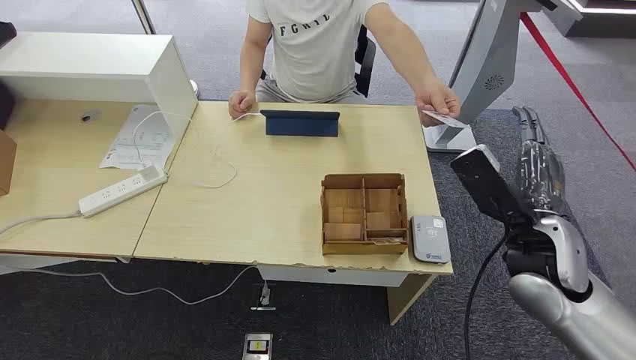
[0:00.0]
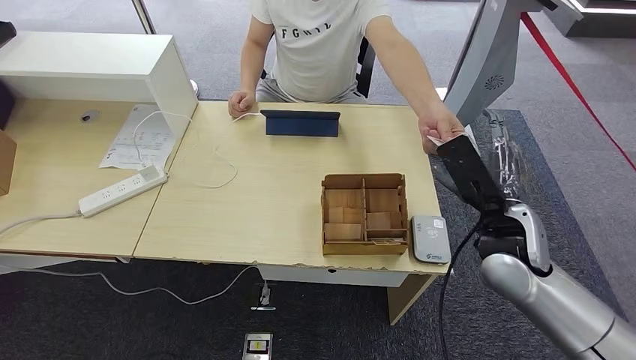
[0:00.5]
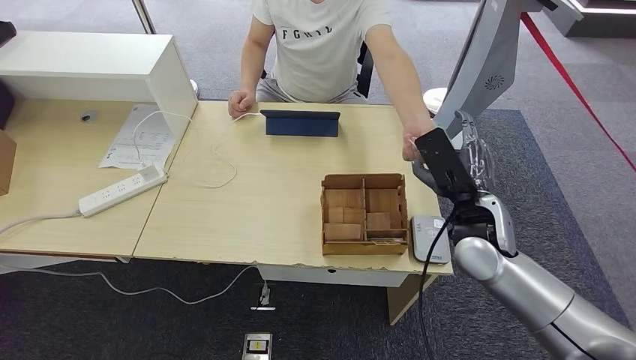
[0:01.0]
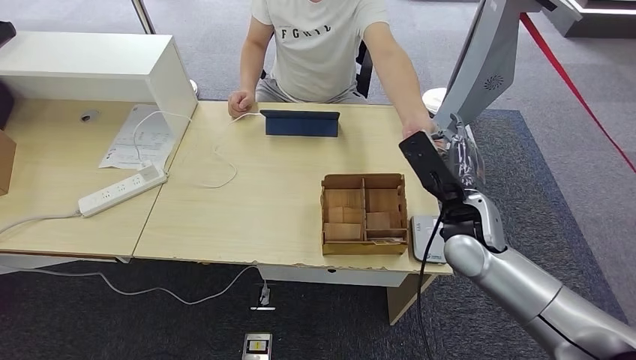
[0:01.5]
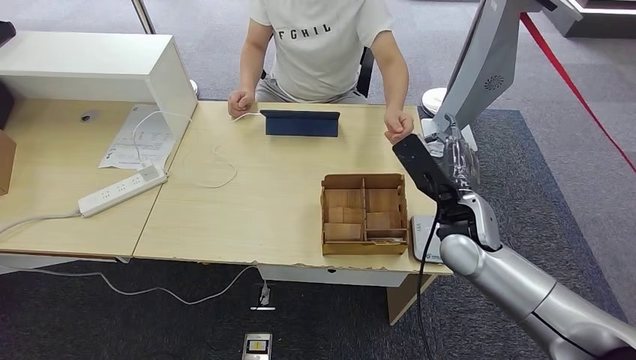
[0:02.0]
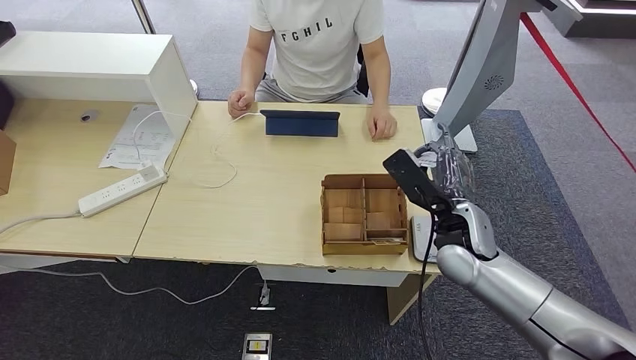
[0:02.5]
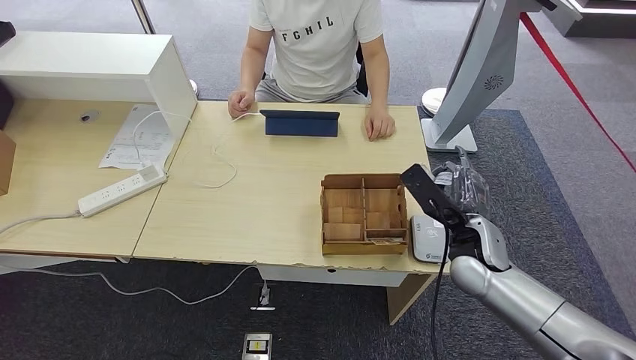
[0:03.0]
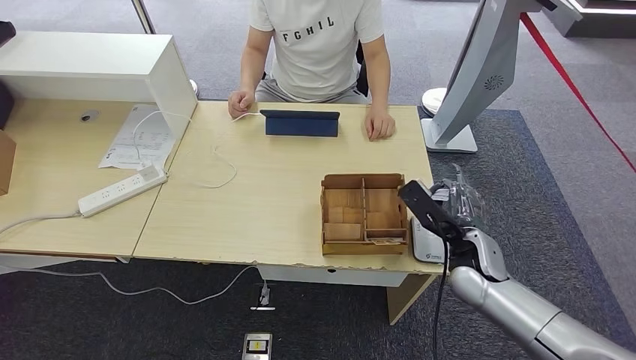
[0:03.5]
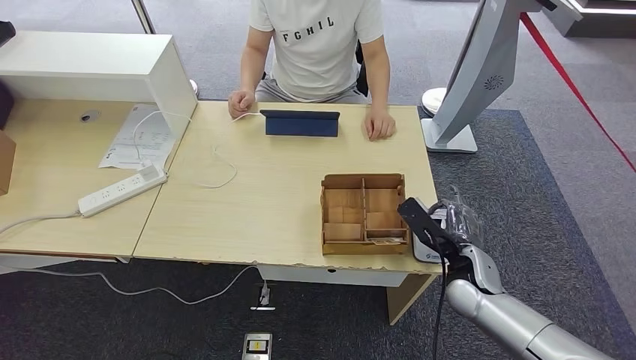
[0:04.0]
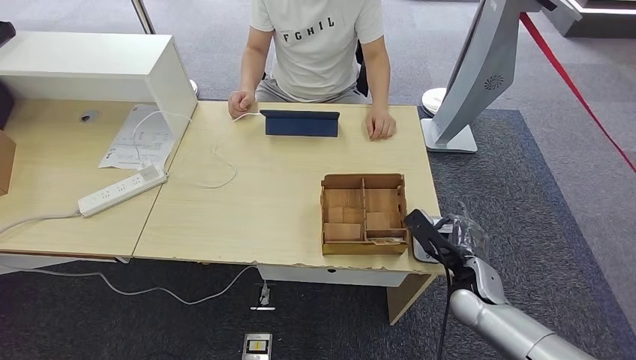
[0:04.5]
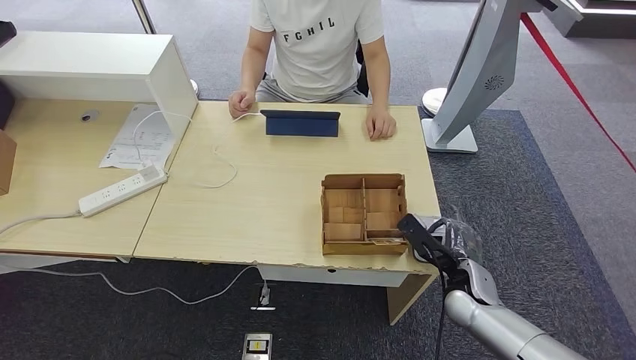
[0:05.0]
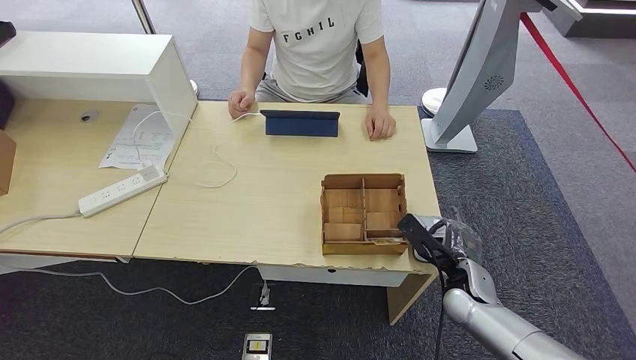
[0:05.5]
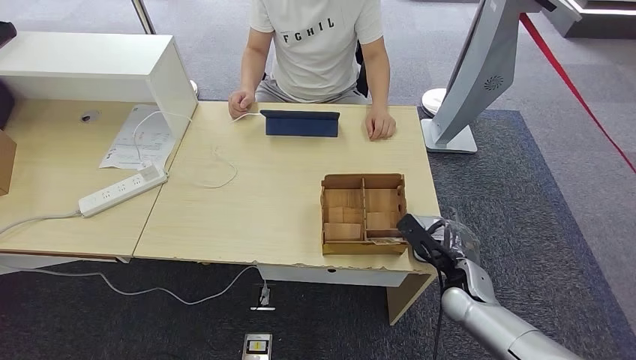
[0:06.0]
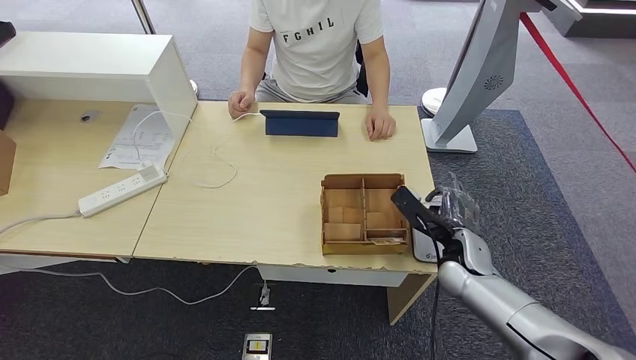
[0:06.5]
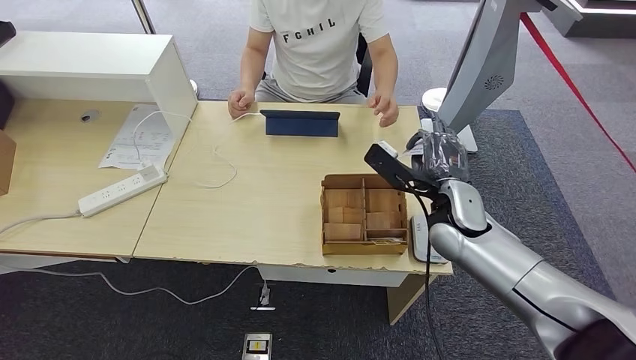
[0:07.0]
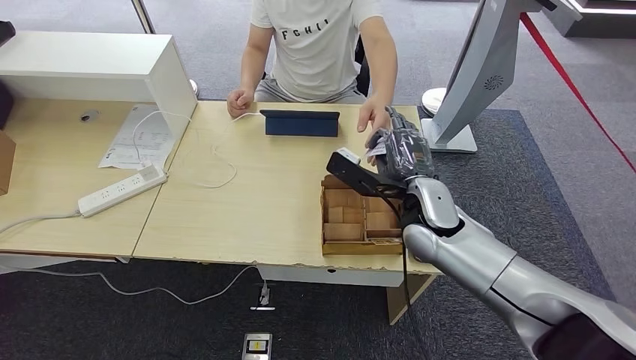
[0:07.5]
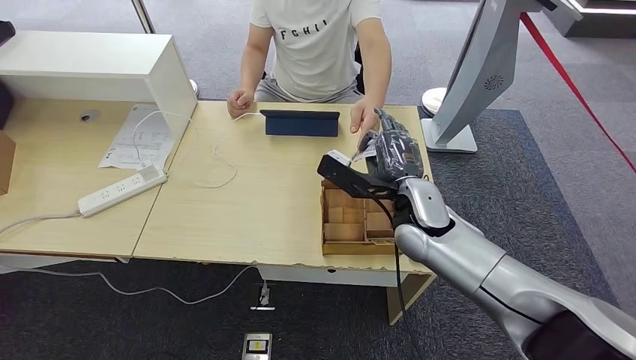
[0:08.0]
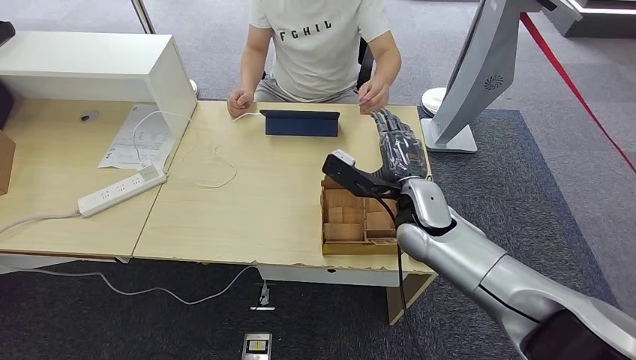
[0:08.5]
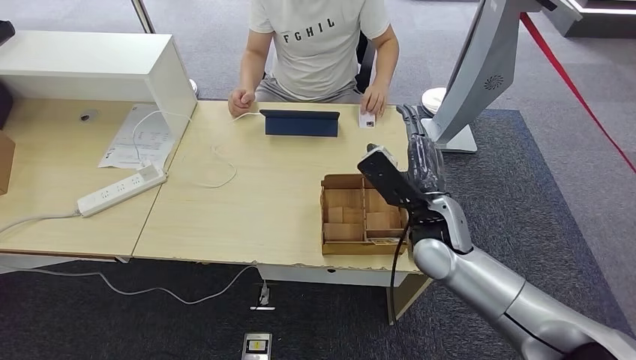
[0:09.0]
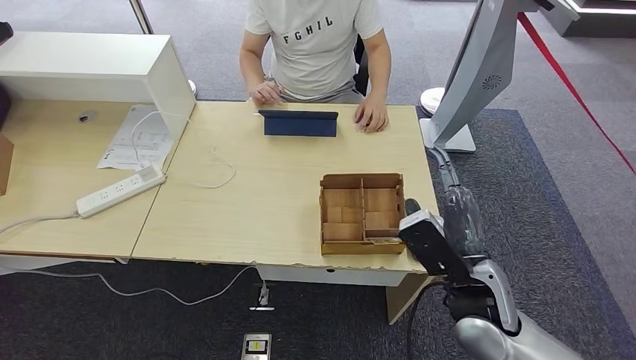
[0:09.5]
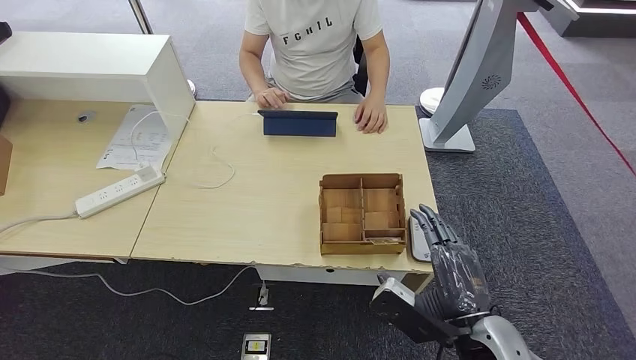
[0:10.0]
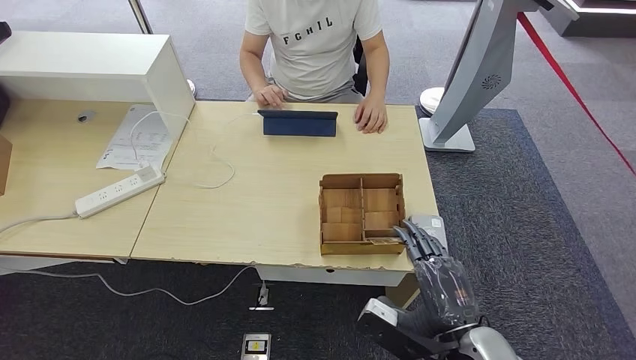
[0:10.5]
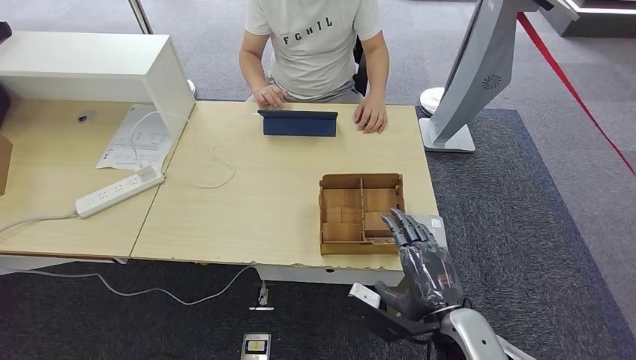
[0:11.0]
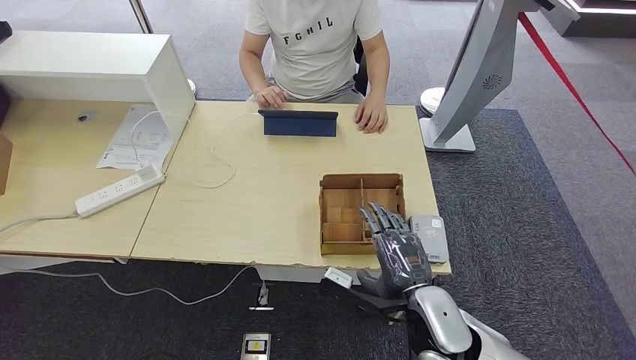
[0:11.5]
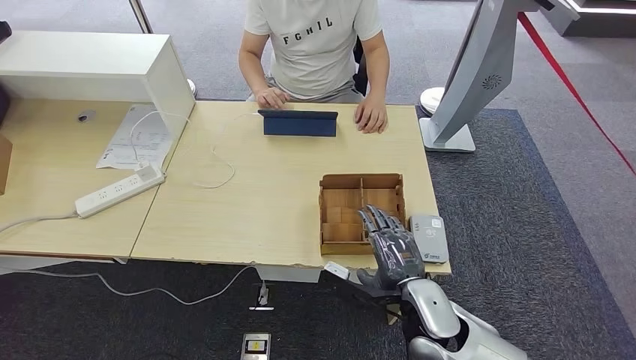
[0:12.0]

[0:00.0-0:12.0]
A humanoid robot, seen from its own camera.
Step, 0:00.0 to 0:02.5: Take the ID card from the person's hand.
Step, 0:03.0 to 0:04.0: Place the ID card on the card reader.
Step, 0:04.5 to 0:10.0: Hand the ID card to the person.
0:02.0 to 0:04.0: The right hand is displaced downward by about 10 cm.
0:04.0 to 0:06.0: The hands move only a little.
0:06.0 to 0:08.0: The right hand moves upward, to the left and forward, about 20 cm.
0:08.0 to 0:10.0: The right hand moves backward, about 20 cm.
0:10.0 to 0:12.0: The right hand is displaced forward, to the left and downward by about 10 cm.

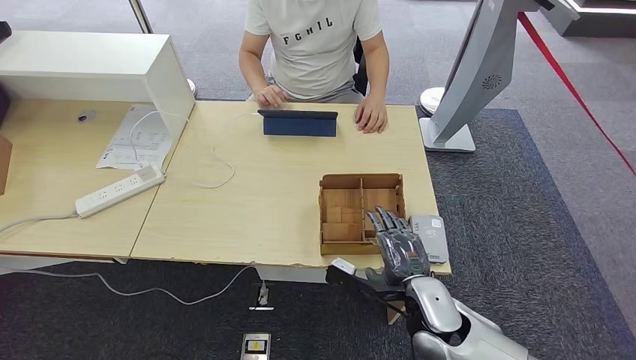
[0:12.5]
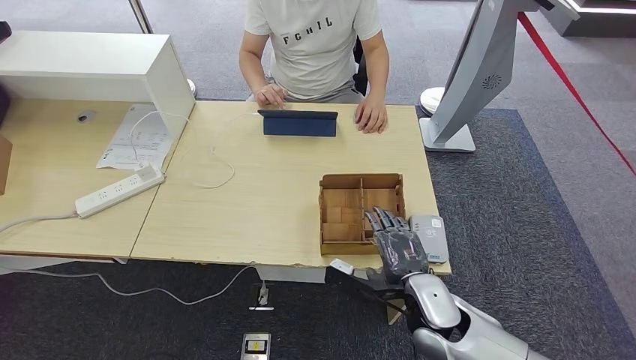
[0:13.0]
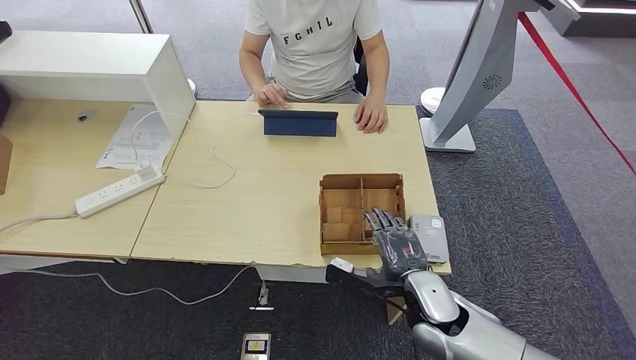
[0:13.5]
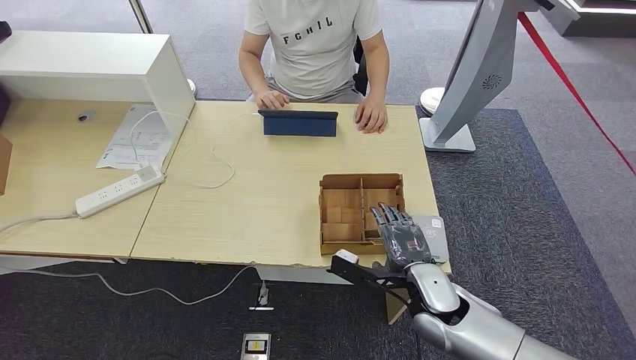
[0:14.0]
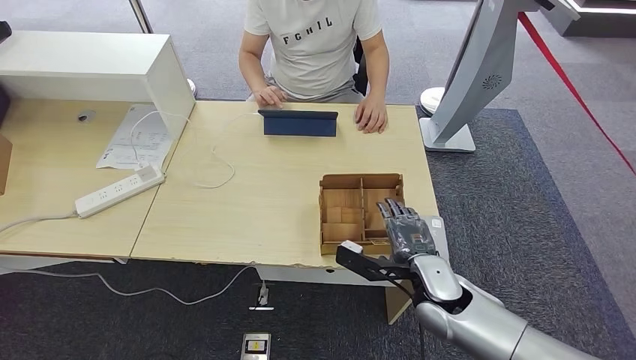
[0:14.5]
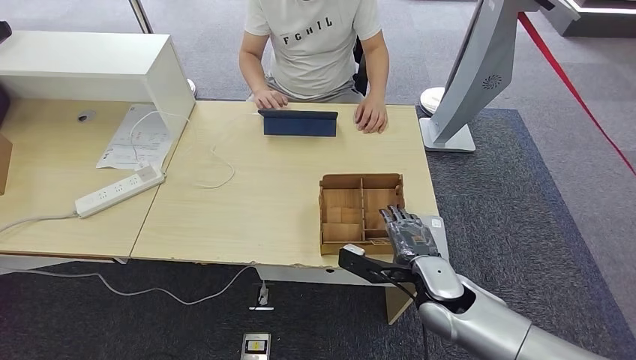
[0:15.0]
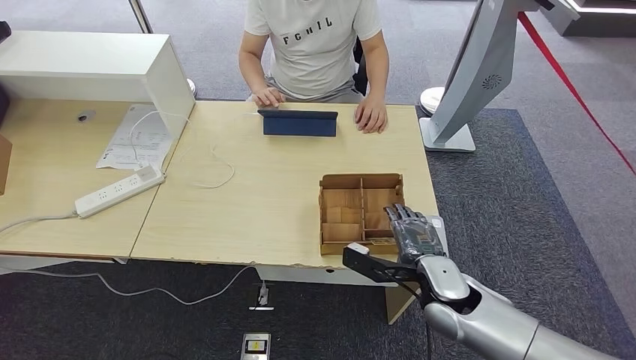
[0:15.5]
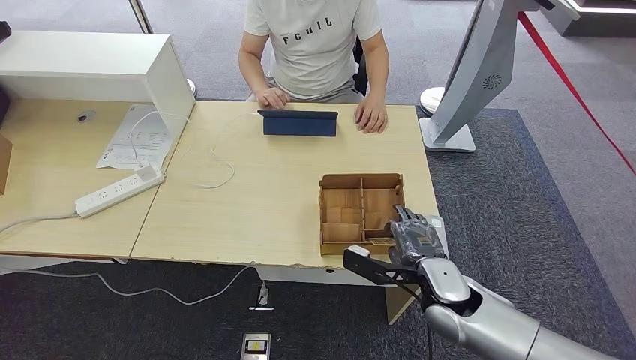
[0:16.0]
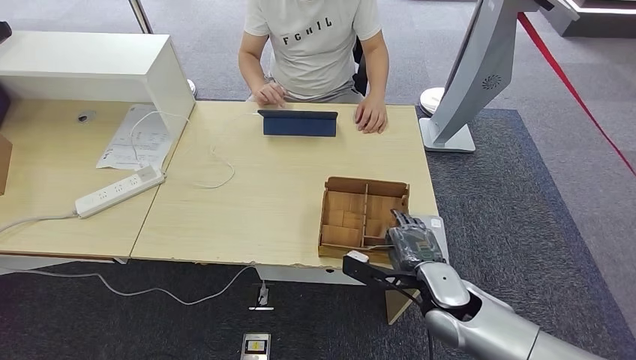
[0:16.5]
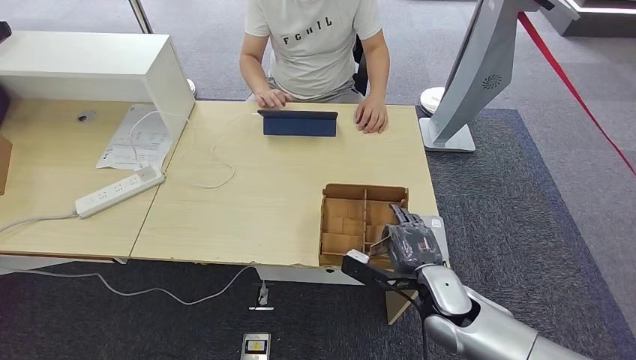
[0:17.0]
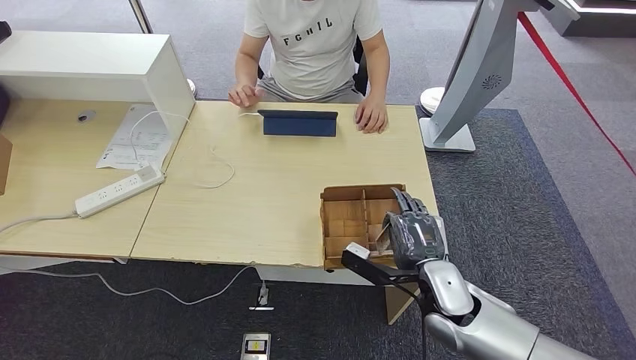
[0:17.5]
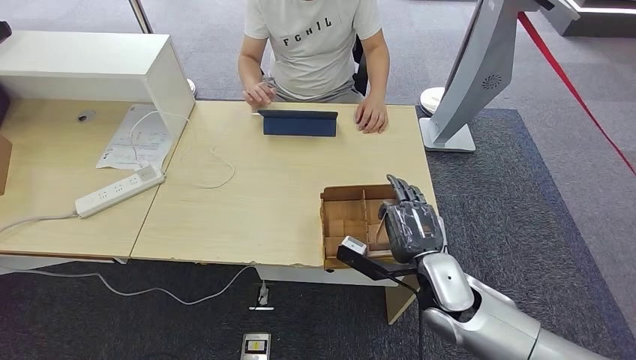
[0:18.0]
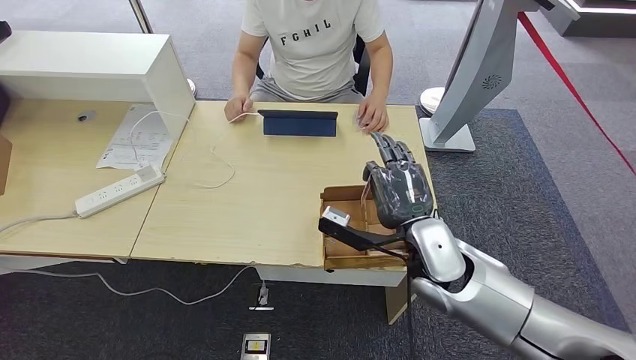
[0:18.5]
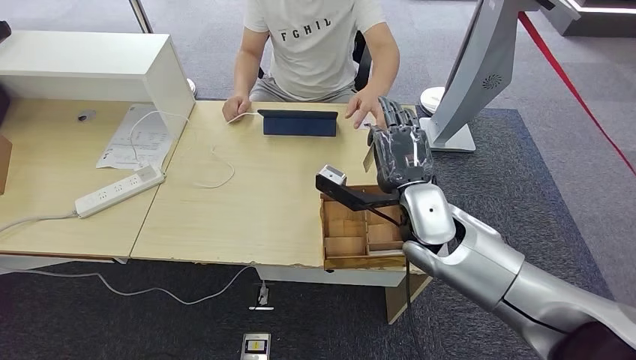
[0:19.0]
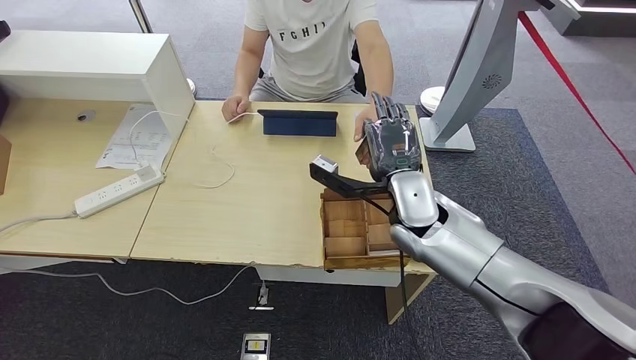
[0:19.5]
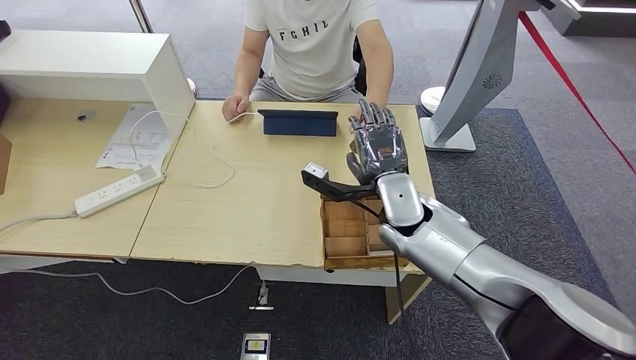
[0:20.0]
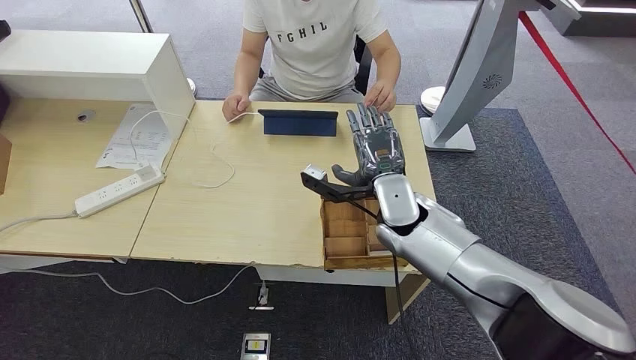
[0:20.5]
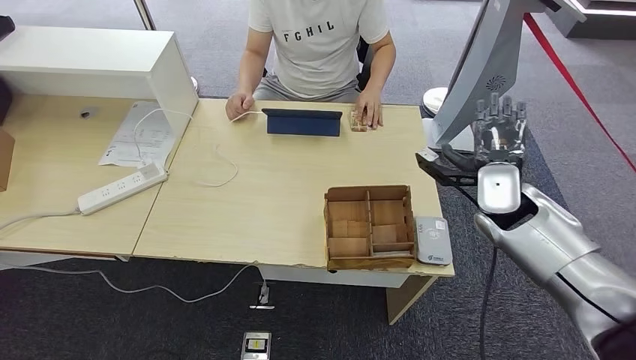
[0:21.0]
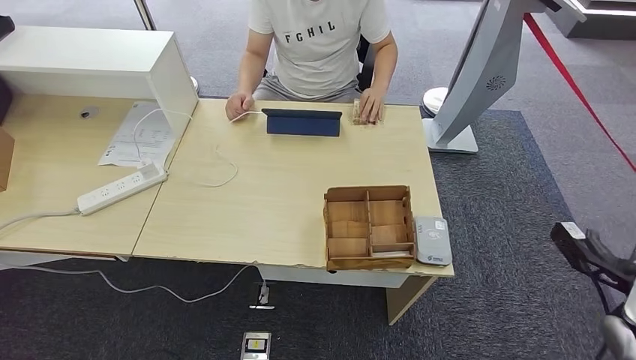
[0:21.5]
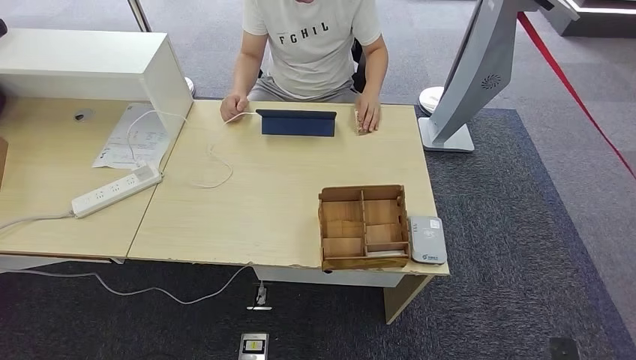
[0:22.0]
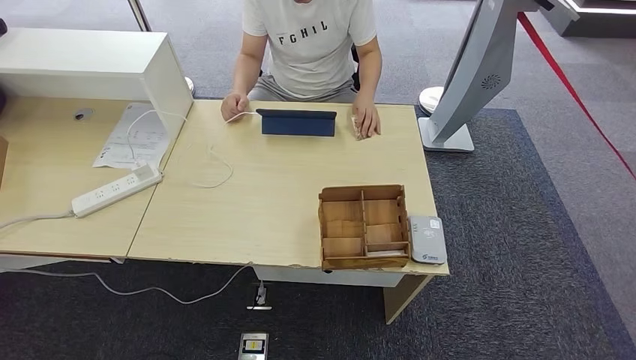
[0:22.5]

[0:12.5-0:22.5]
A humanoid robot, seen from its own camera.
Step, 0:12.5 to 0:18.0: Pick up the room key from the key card box.
Step, 0:18.5 to 0:22.5: Hand the room key to the person.
0:12.5 to 0:16.5: The hands make only small movements.
0:16.5 to 0:18.5: The right hand heads upward, covering approximately 10 cm.
0:18.5 to 0:20.5: The right hand goes roughly 10 cm forward.
0:20.5 to 0:22.5: The right hand moves backward, downward and to the right, about 50 cm.
